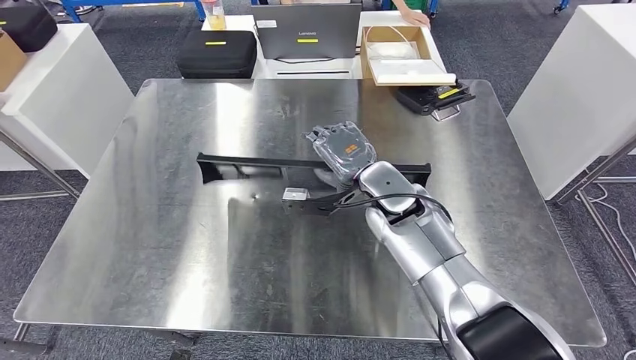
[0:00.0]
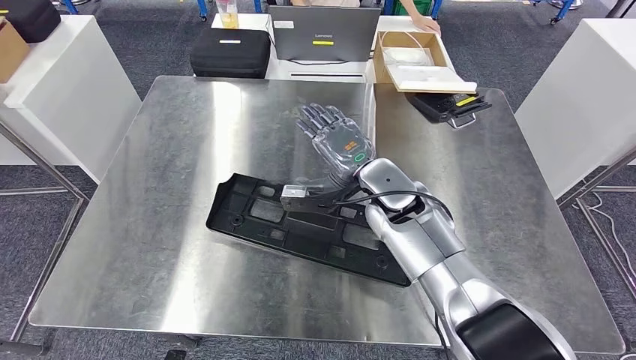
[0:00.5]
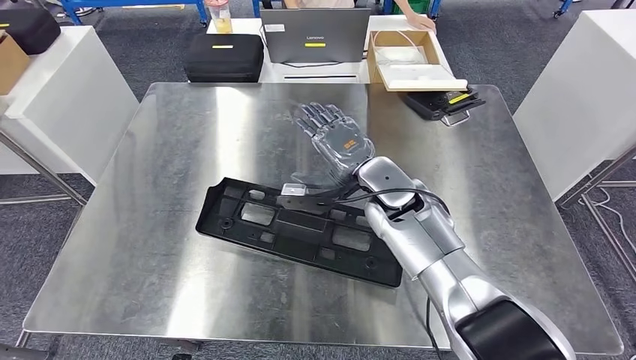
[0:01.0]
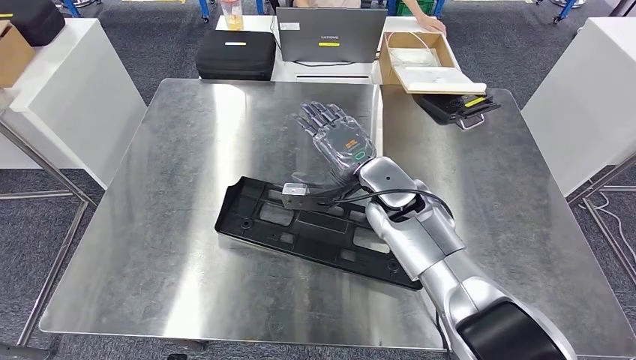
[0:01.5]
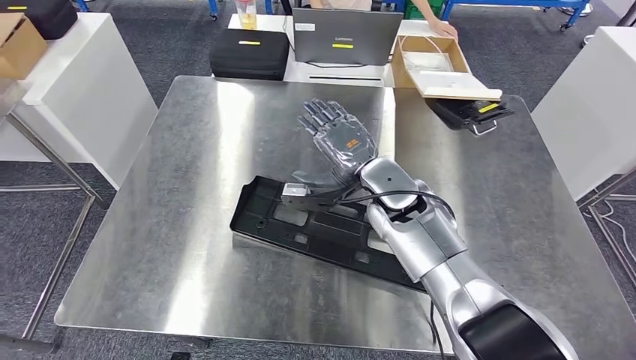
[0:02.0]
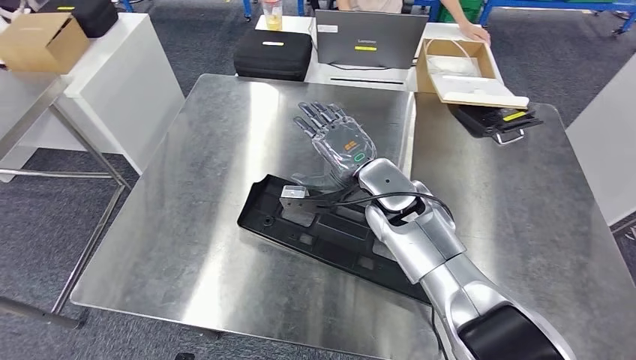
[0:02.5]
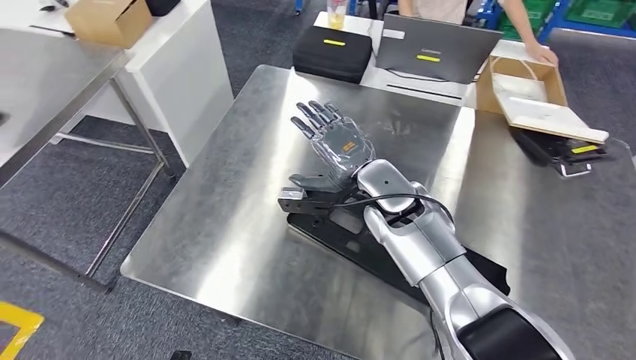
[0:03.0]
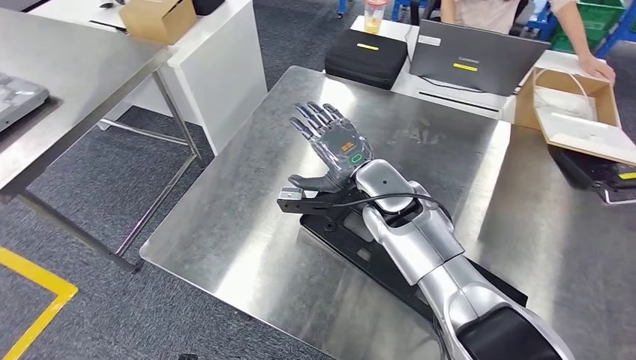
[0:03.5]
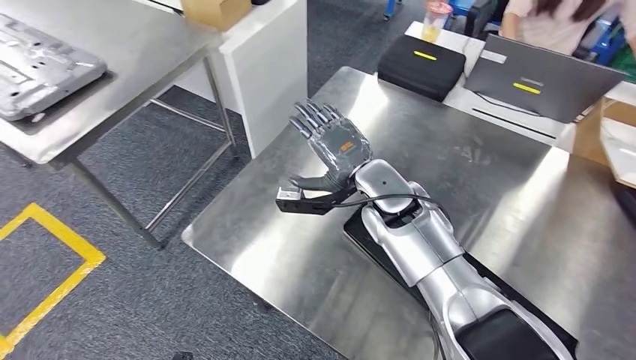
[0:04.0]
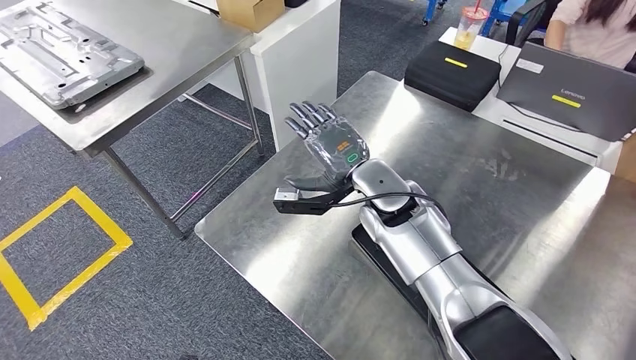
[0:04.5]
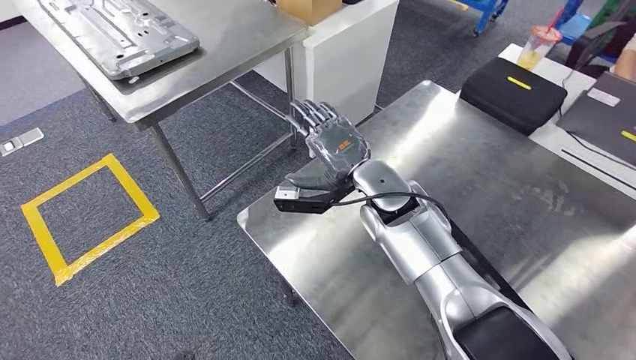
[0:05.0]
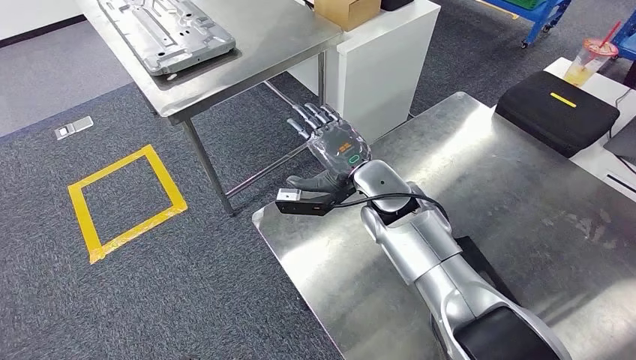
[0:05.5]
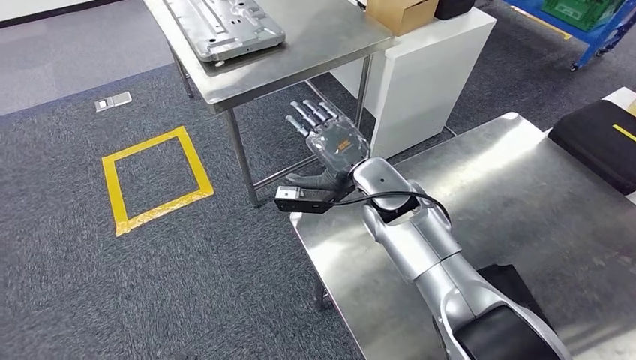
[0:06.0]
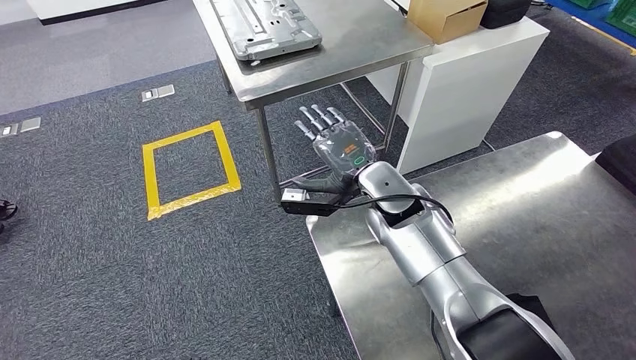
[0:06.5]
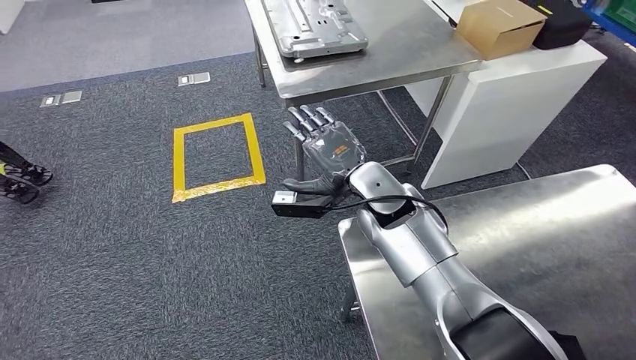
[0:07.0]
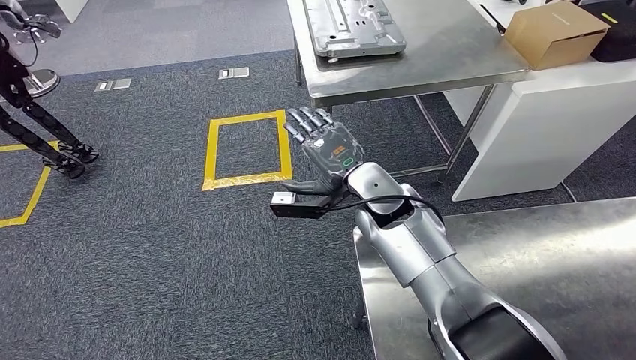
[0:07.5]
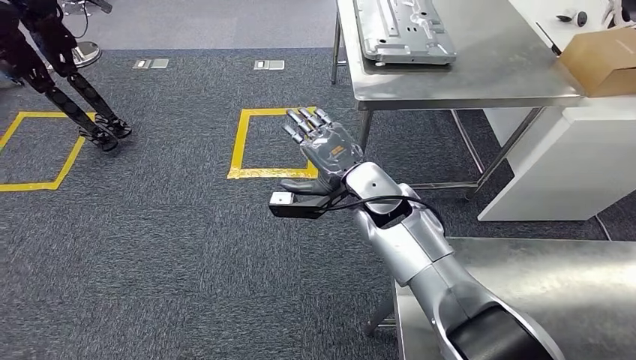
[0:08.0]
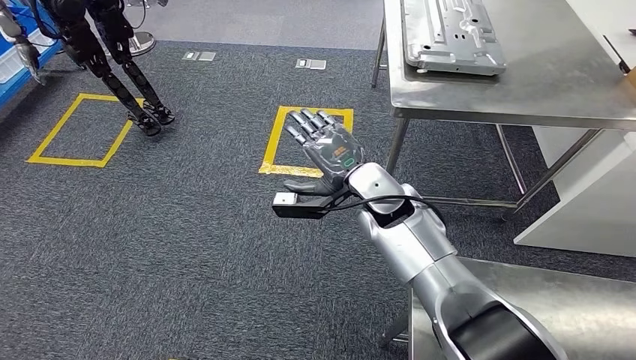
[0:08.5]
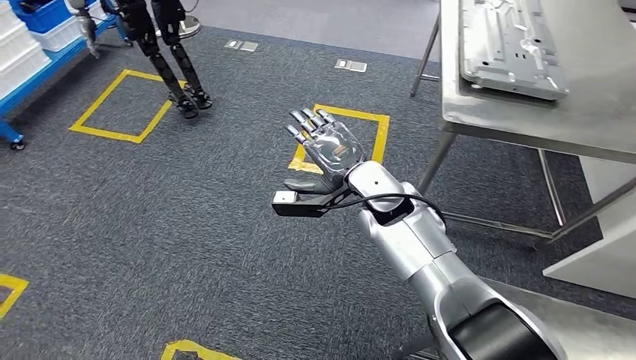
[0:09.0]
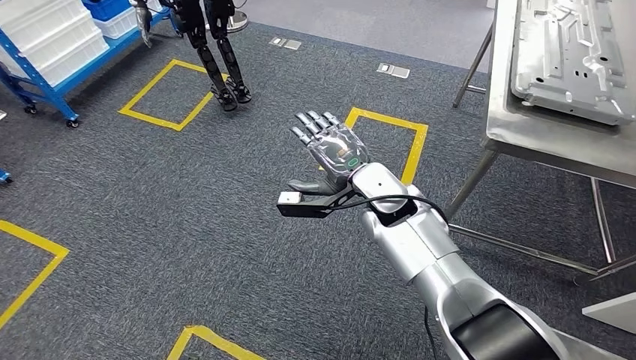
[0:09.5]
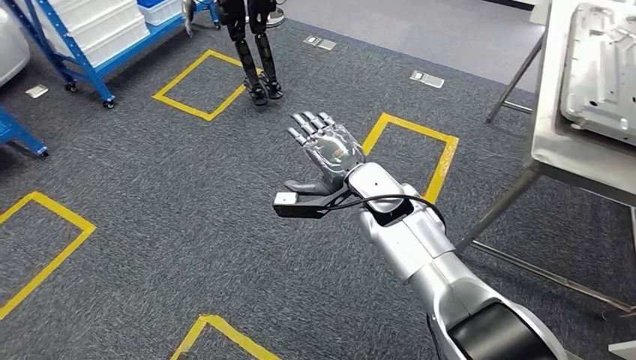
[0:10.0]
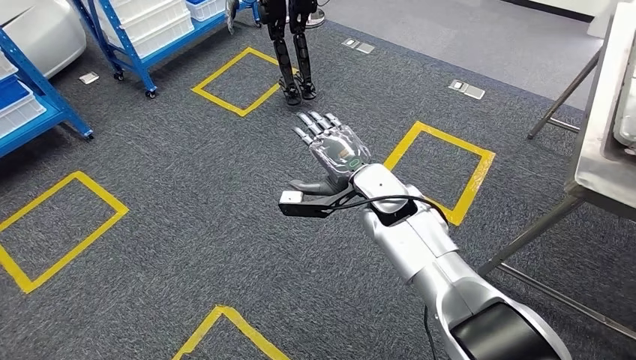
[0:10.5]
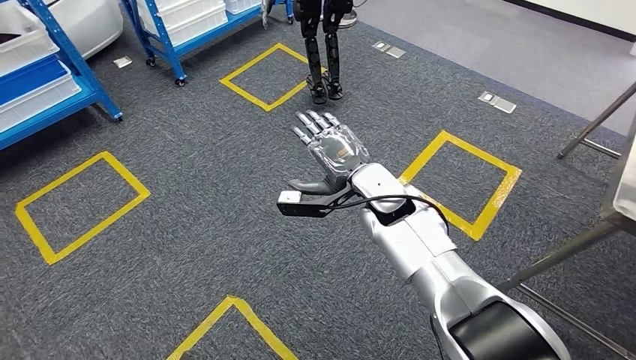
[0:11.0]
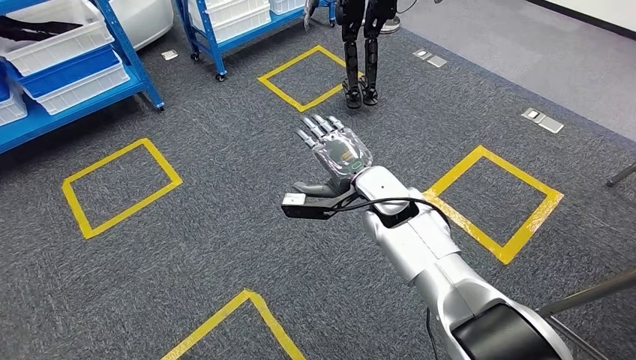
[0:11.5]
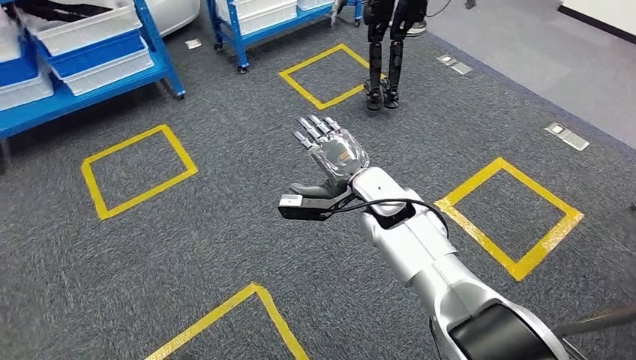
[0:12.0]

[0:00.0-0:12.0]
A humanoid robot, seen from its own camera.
Step, 0:00.0 to 0:06.5: Insert the large material into the corresponding slot on the workbench.

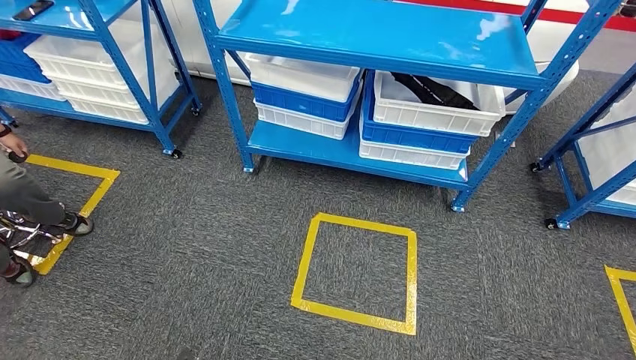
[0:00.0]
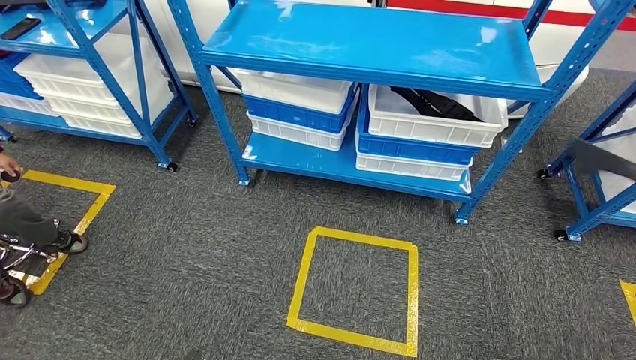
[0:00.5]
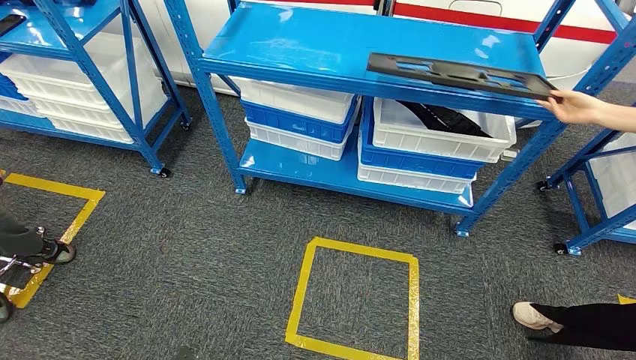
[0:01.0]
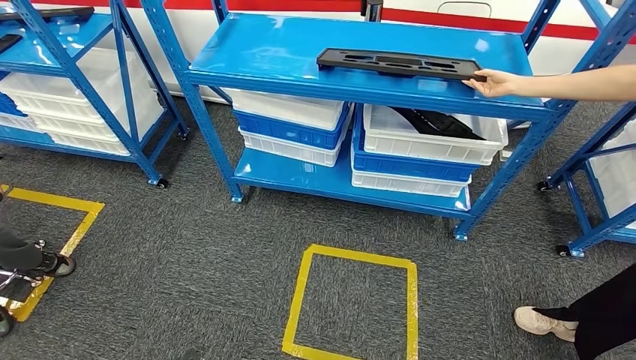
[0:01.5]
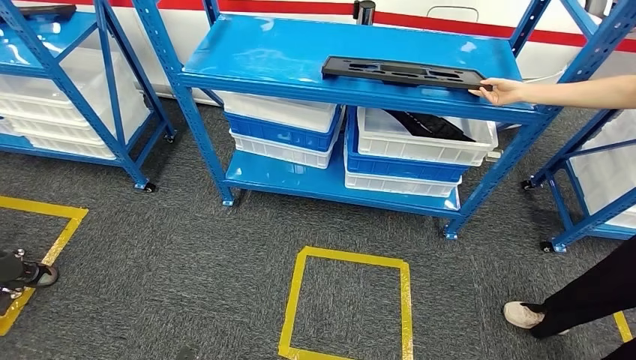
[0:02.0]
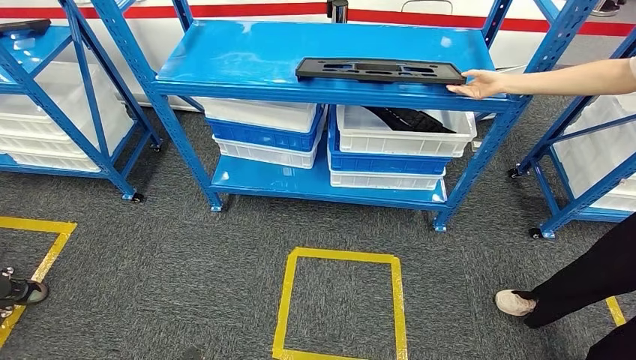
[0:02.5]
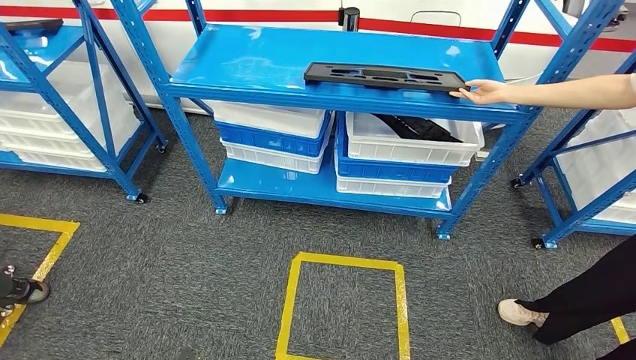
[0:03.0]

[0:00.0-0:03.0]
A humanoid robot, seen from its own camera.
Step, 0:00.0 to 0:03.0: Return to the initial position at the shelf.
